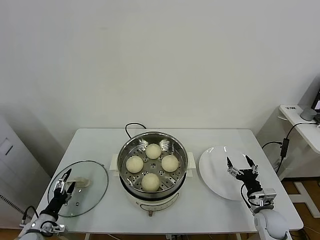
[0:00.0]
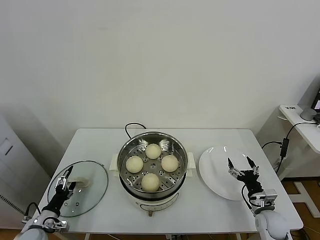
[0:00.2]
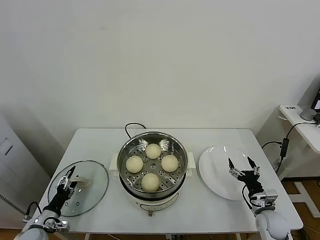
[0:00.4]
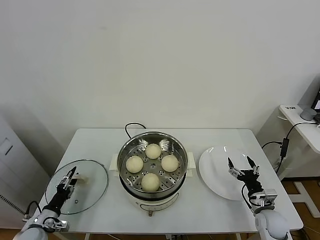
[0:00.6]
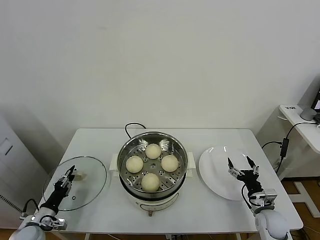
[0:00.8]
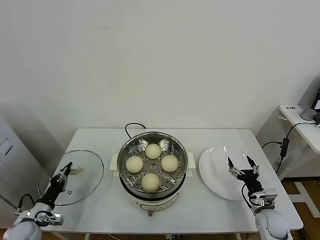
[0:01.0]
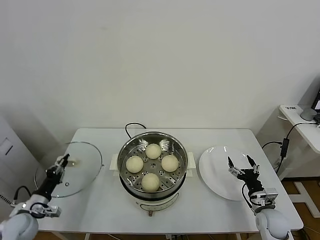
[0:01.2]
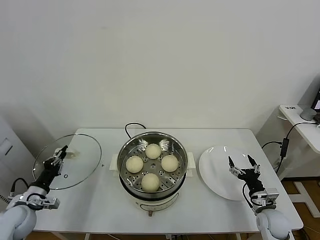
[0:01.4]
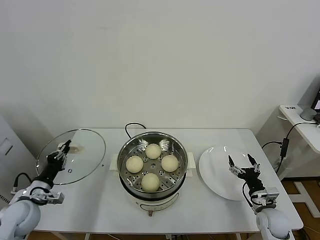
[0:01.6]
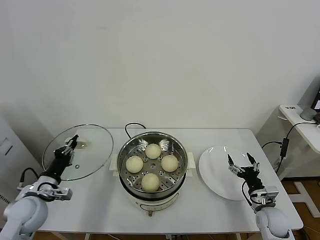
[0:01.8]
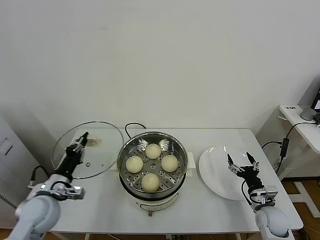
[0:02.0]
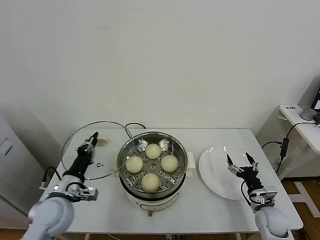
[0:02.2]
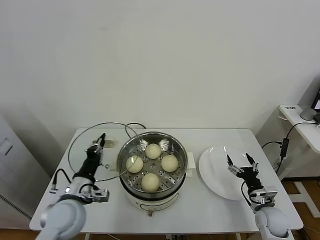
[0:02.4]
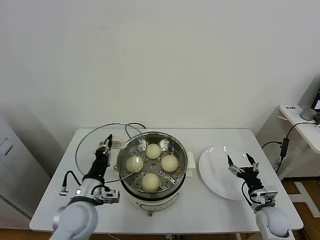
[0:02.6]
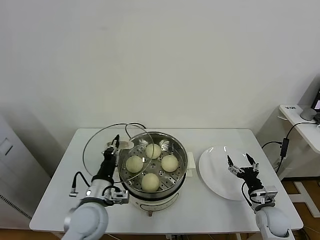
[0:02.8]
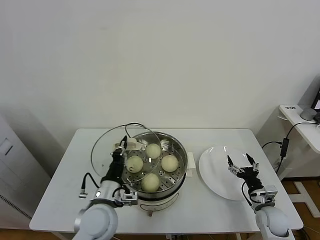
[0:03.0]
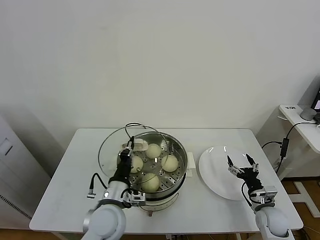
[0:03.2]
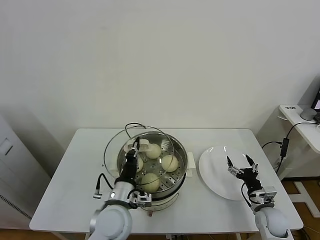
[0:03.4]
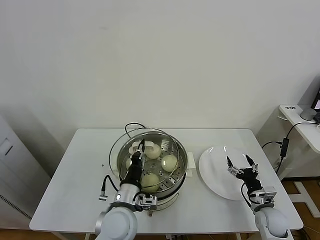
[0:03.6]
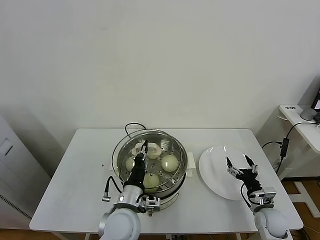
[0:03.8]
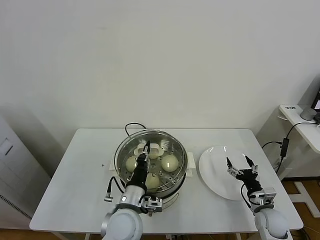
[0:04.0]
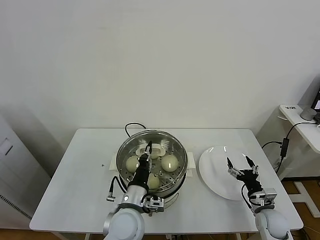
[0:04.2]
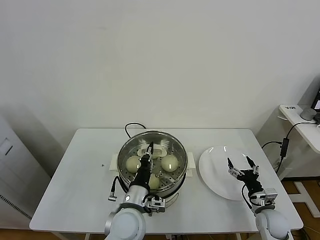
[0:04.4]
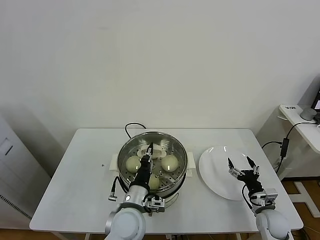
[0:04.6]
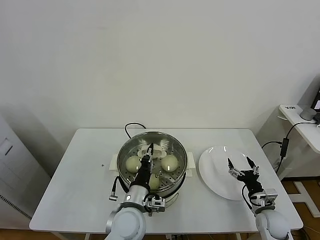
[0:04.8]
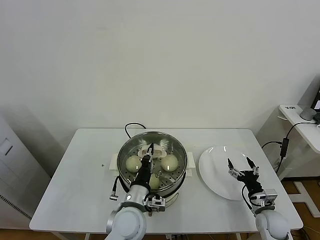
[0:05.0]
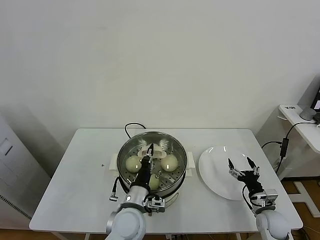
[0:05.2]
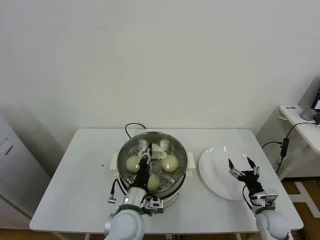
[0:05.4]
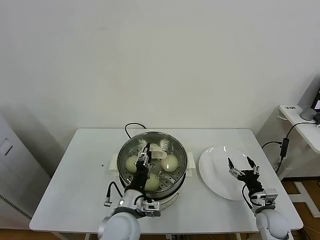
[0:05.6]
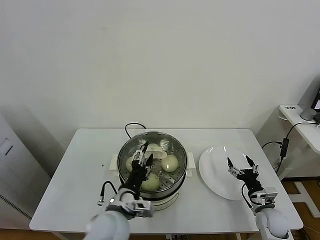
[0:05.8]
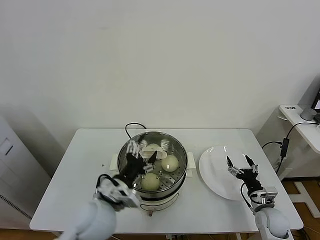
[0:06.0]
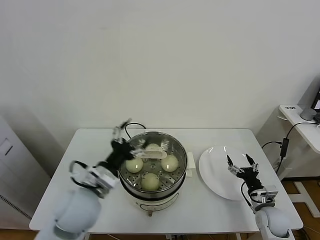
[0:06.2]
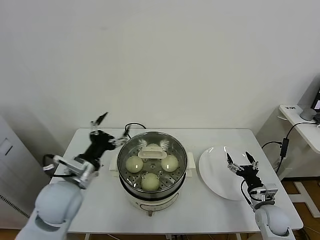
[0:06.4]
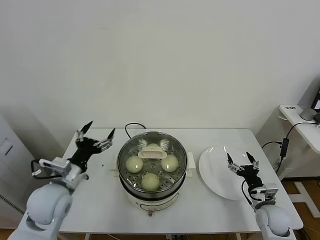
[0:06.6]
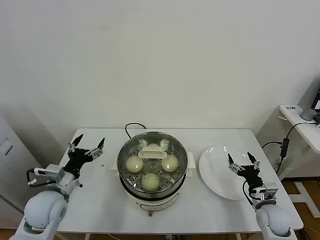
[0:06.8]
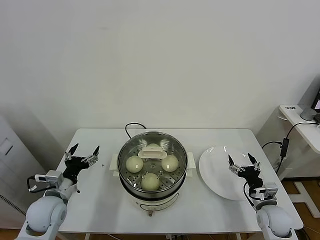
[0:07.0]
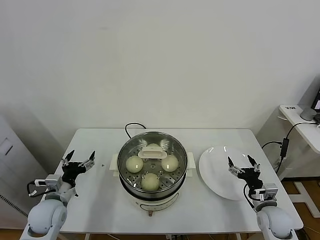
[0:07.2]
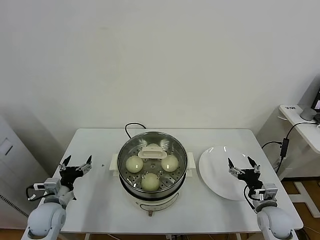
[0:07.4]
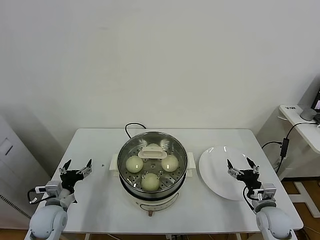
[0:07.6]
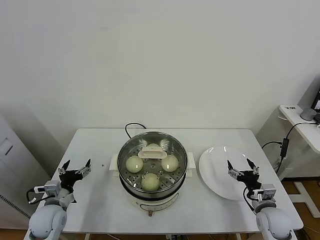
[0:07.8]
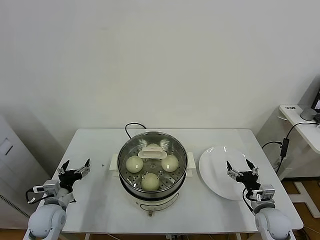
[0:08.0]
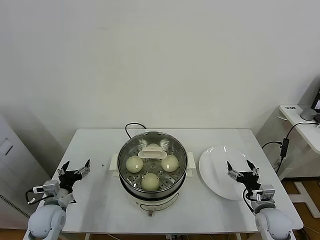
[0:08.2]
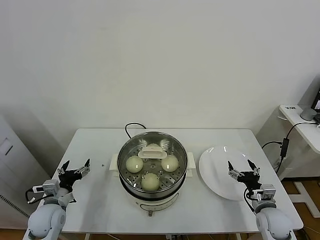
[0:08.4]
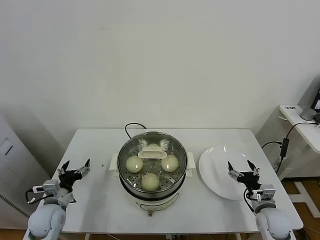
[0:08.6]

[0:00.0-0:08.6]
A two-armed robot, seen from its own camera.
Task of the whole recording: take steamed baozi put them in steamer.
Step, 0:01.4 to 0:06.0: Place the pot lid on the steamer with left gripper.
0:00.0 to 0:01.4: The left gripper goes some 10 cm upward and forward, and closes.
0:01.4 to 0:02.8: The left gripper travels to the right by some 25 cm.
0:02.8 to 0:04.4: The left gripper is displaced to the right by approximately 10 cm.
0:04.4 to 0:05.8: The left gripper opens its fingers.
0:05.8 to 0:07.2: The left gripper goes about 20 cm to the left, and opens its fingers.
0:07.2 to 0:08.6: The grippers make only small movements.
